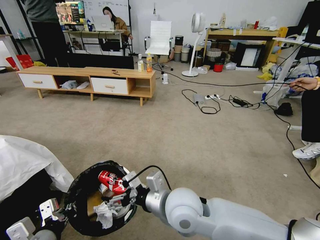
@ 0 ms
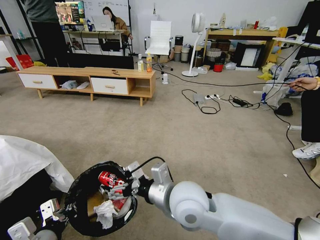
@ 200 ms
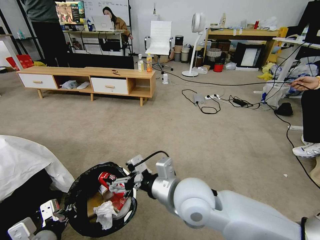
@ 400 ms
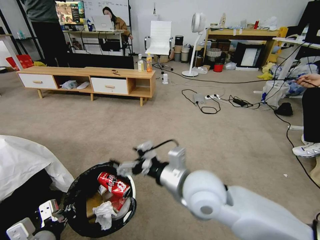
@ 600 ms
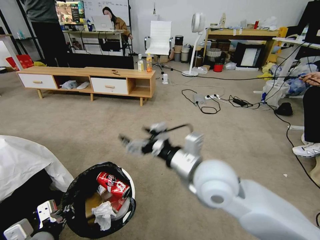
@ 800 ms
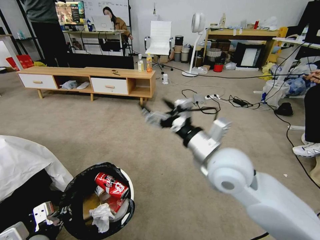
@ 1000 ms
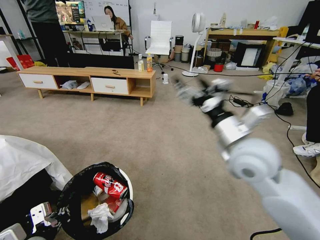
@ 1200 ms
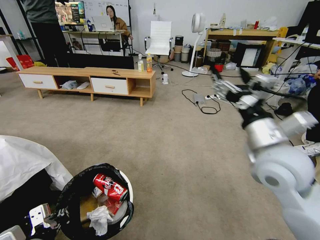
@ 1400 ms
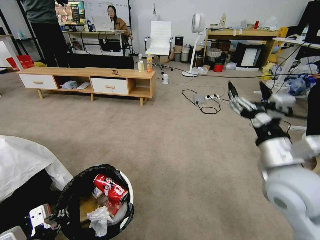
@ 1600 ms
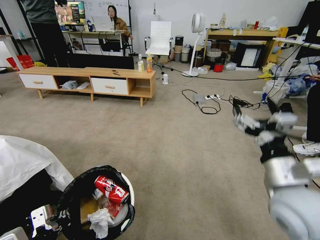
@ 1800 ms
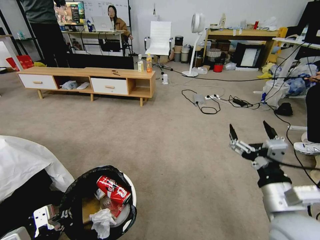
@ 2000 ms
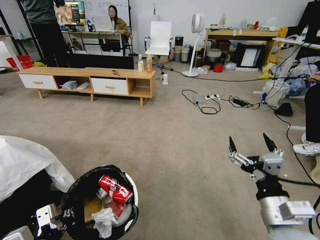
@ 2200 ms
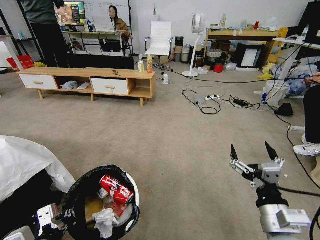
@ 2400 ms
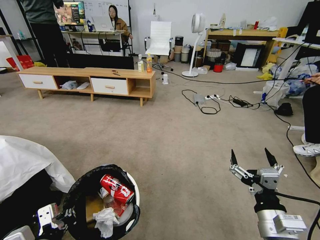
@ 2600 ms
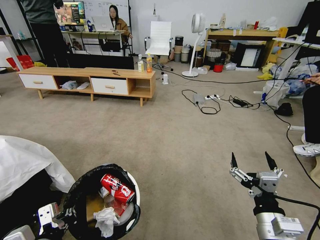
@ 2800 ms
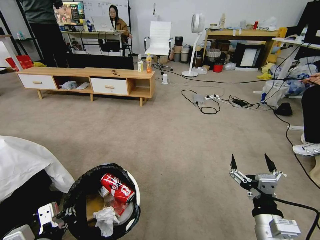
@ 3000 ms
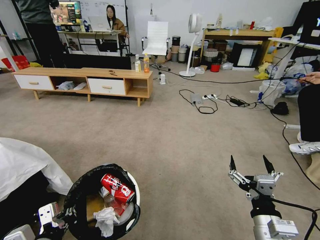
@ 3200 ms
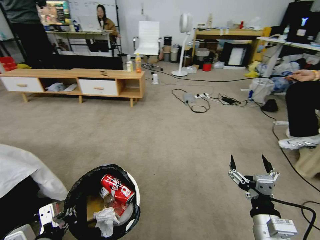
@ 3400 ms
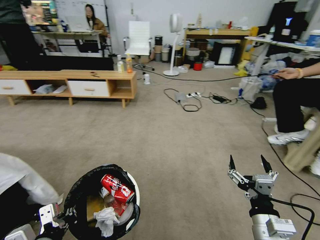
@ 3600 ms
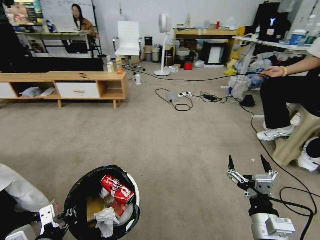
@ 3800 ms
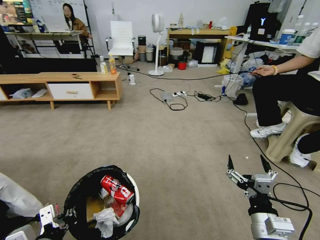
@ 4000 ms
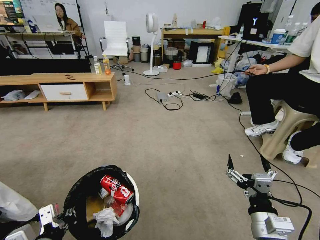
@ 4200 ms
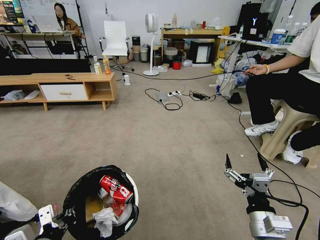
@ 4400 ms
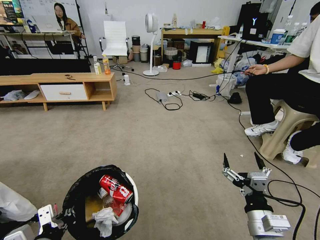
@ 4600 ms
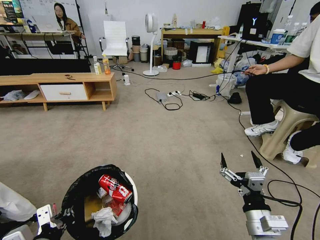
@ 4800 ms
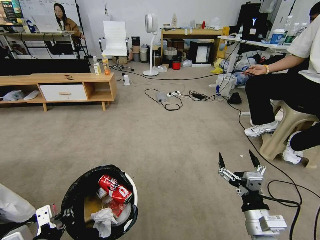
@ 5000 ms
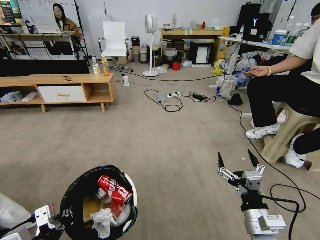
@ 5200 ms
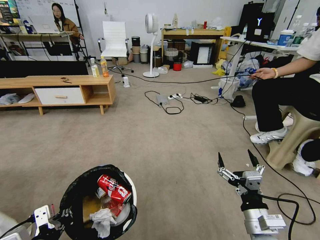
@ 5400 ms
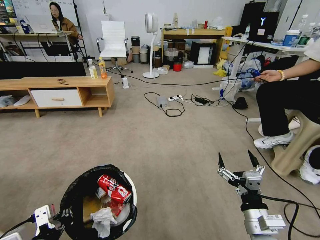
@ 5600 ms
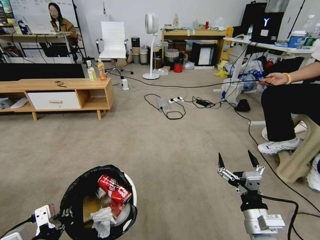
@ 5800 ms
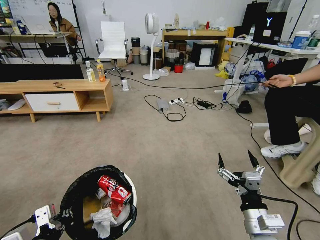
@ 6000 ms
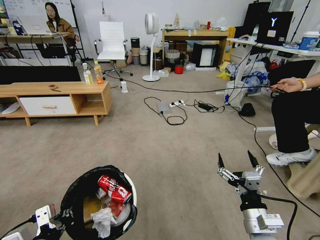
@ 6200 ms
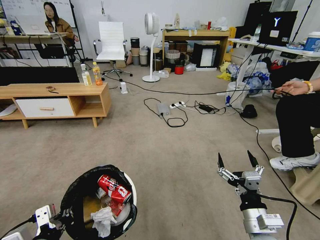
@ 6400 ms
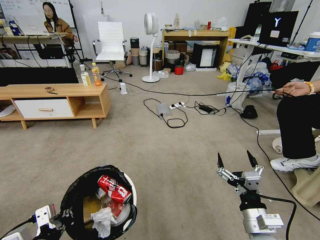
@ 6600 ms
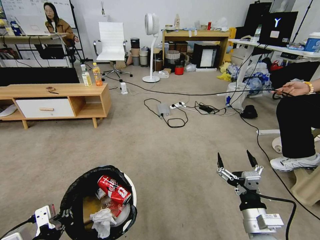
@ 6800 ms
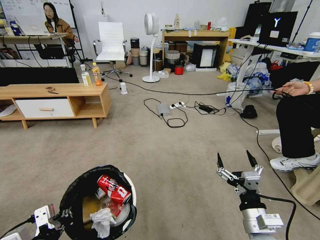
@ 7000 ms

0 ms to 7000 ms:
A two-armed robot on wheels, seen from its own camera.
Task of the whole recording: Pick up the trash bin and place the garbage on the floor into it.
0 ms to 1400 ms: The right gripper is displaced to the right and upward by approximately 25 cm.
1400 ms to 2800 ms: The right gripper moves downward and backward, roughly 20 cm.
